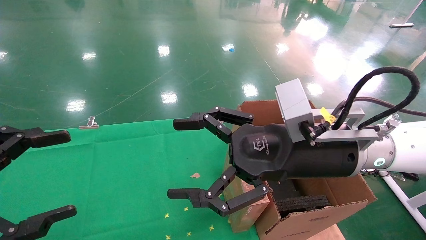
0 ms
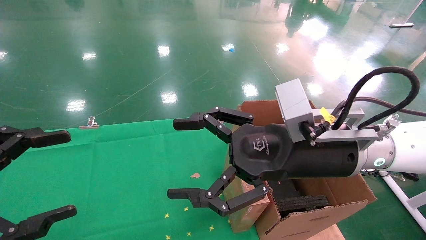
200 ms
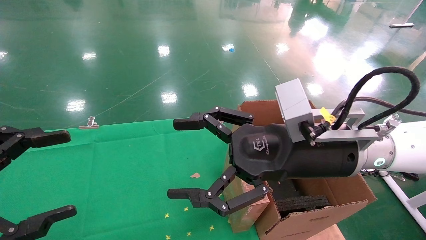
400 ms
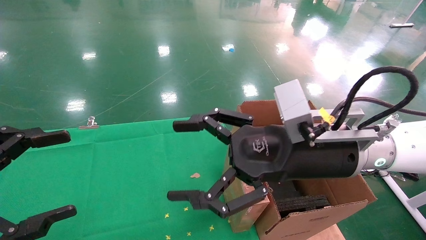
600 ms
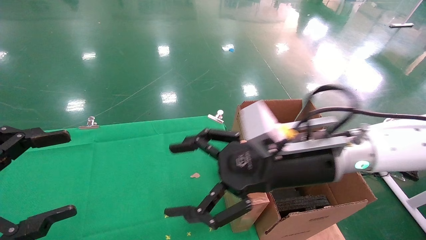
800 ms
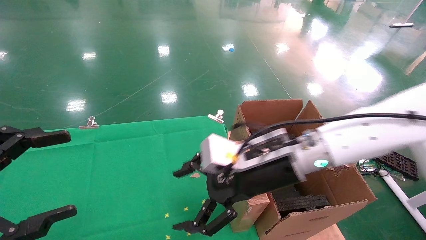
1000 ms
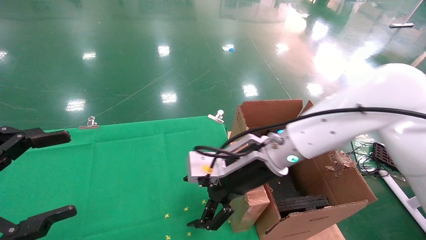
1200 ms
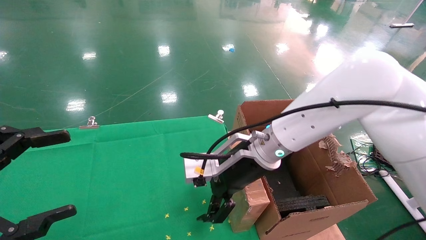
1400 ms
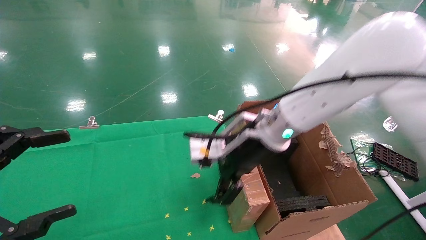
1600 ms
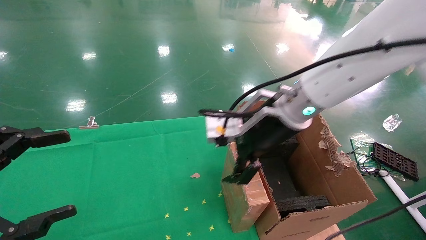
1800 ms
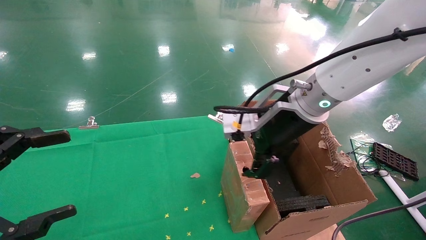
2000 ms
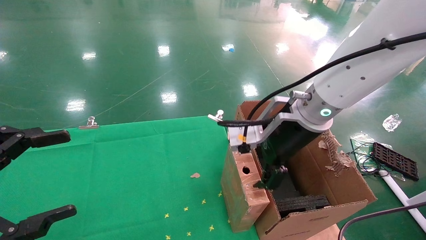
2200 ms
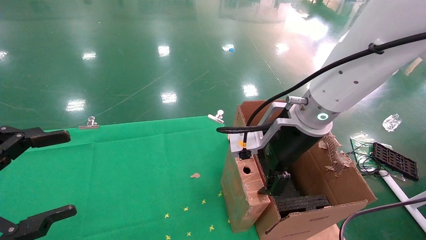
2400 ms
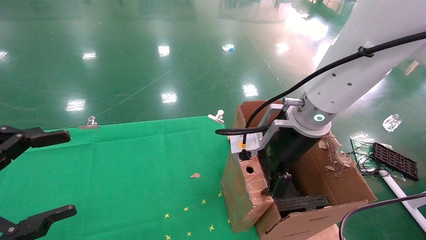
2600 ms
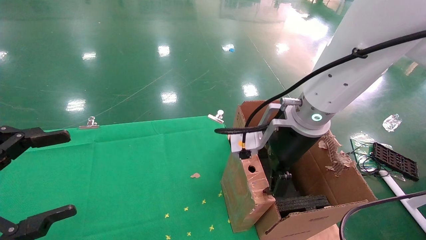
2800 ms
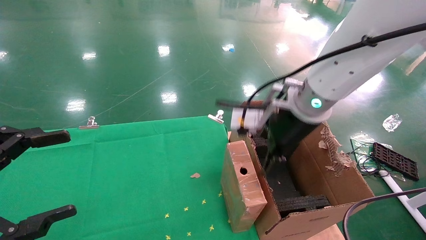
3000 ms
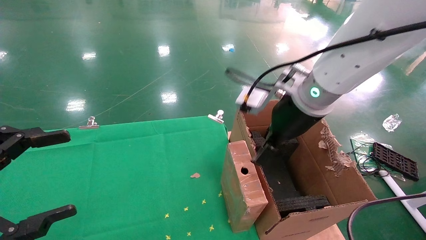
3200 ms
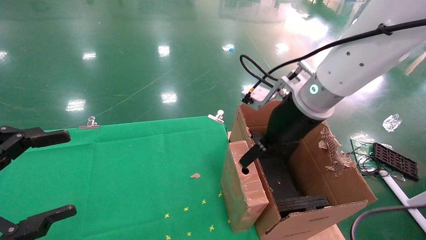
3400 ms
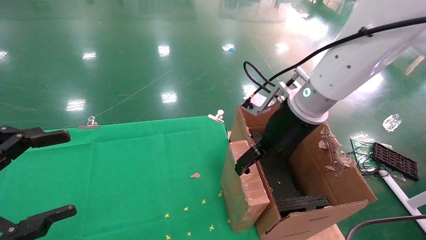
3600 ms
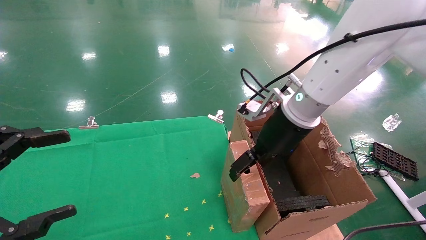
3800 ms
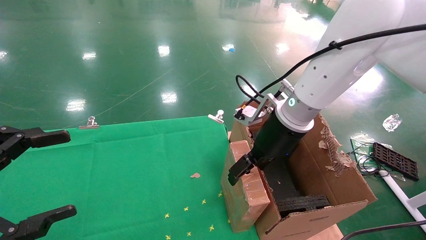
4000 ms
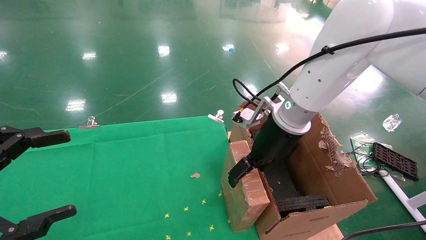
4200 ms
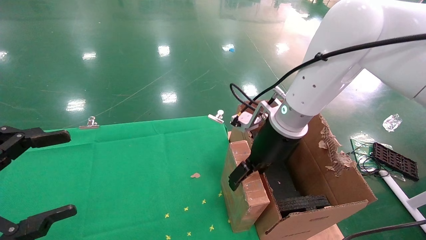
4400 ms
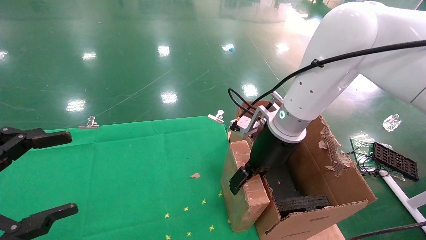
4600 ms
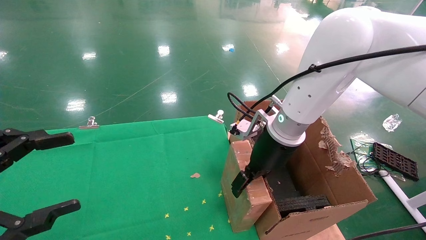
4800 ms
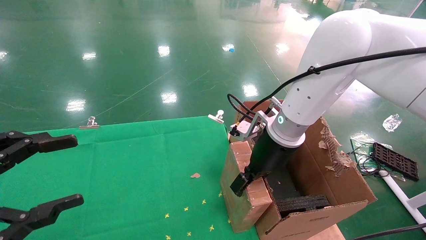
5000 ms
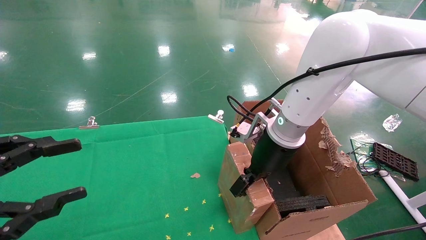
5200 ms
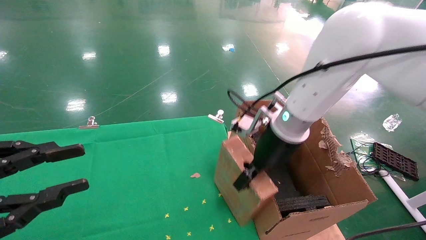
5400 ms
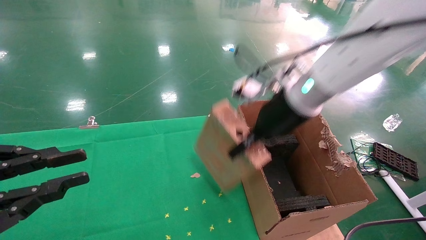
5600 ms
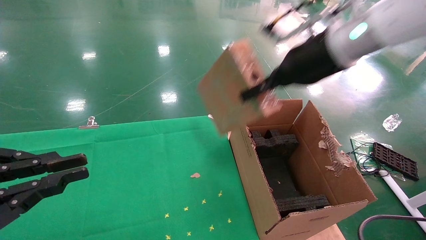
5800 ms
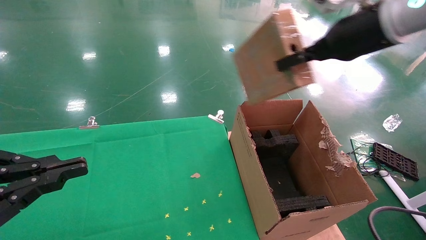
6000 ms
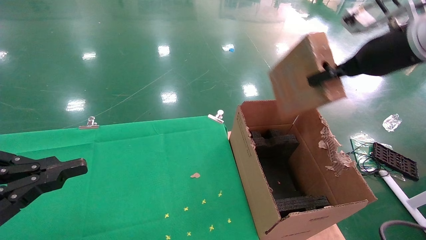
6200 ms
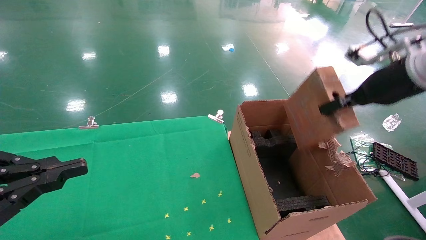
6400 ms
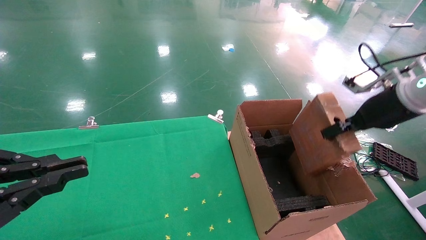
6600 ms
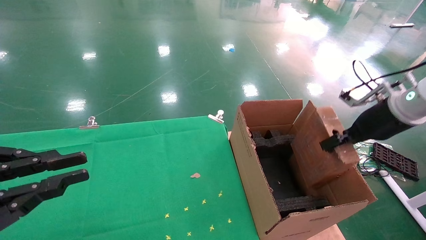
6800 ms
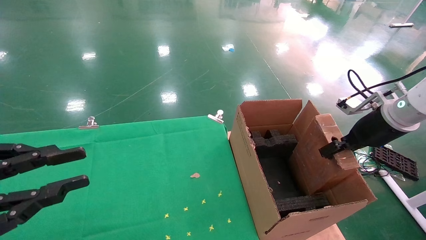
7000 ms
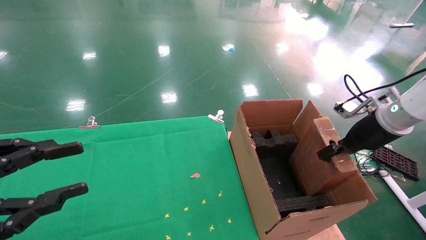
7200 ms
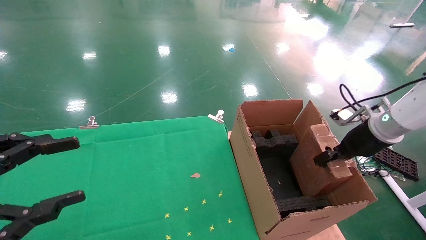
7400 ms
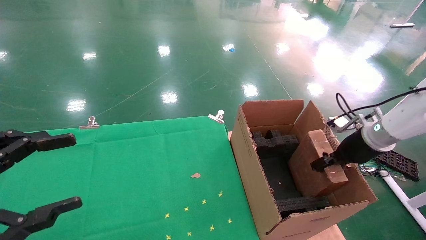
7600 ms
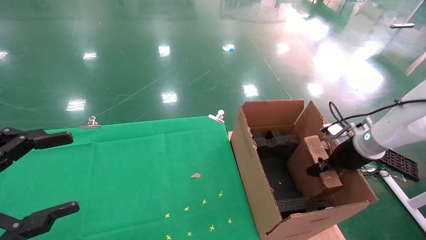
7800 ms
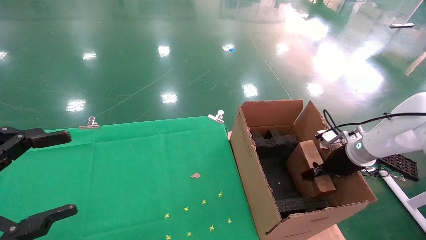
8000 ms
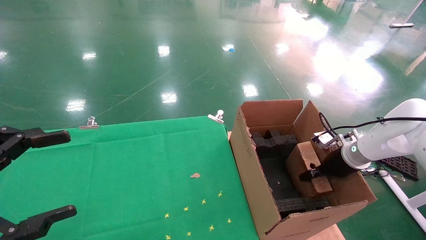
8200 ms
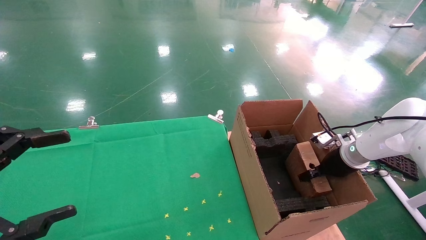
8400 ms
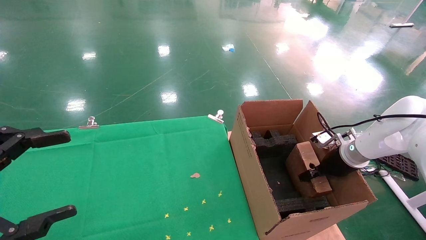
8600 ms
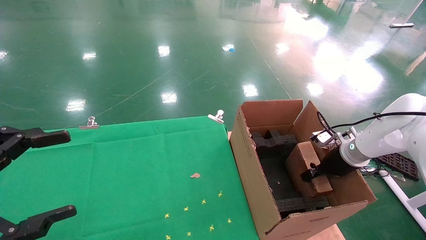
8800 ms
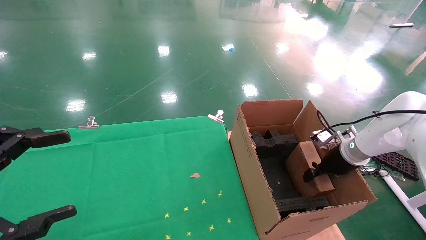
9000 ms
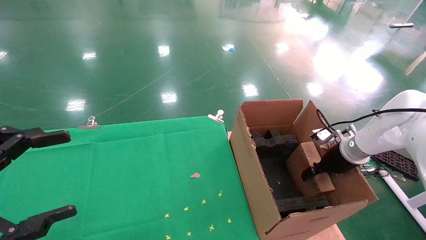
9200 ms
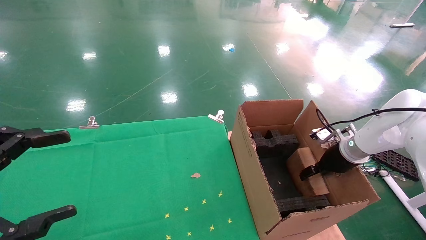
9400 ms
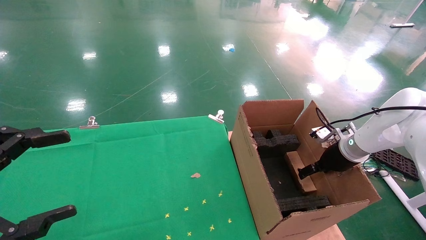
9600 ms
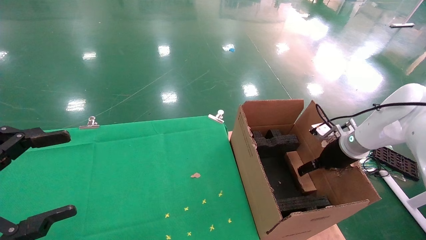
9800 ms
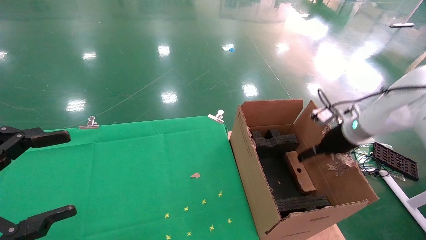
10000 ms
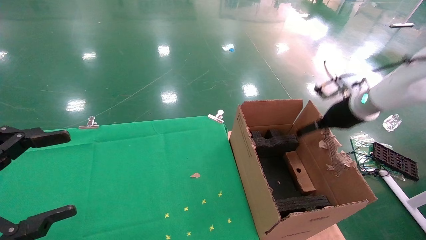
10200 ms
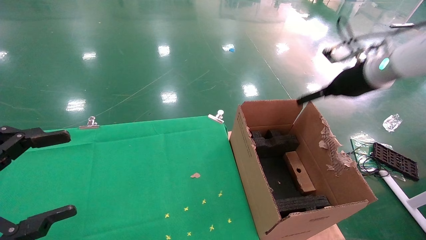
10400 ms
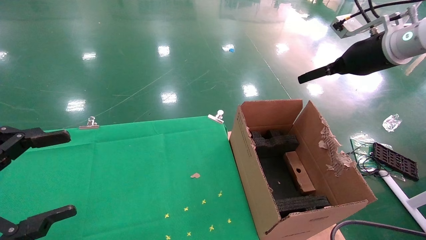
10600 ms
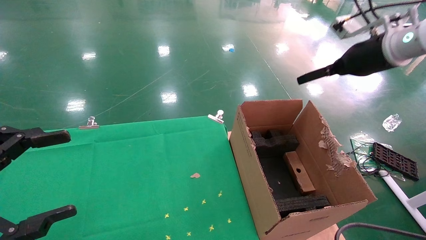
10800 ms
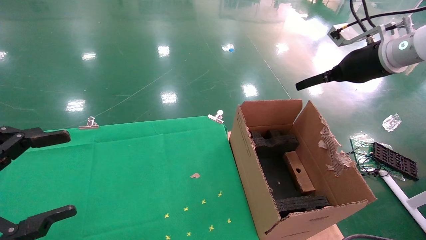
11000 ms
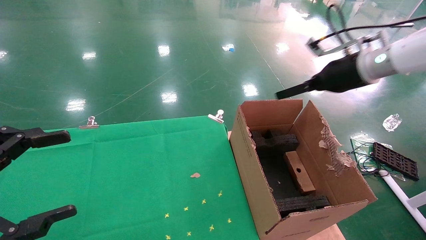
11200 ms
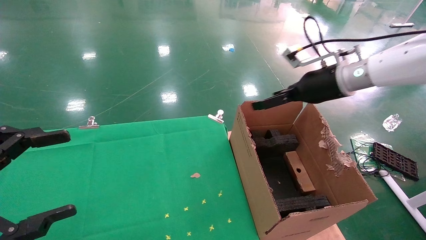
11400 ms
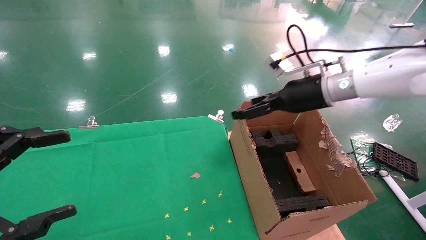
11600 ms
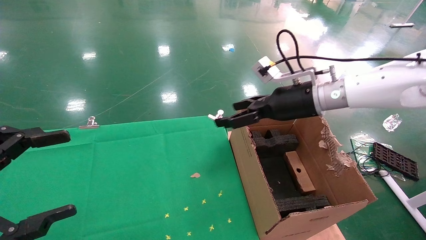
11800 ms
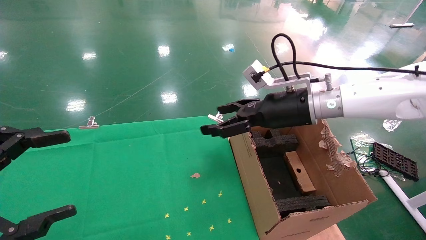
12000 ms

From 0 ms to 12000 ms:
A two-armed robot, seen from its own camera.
Task of the whole recording: using a robotic arm to pick up a cardboard box and palace it the carton.
Step, from 1000 ms to 5200 ms: Pick up the mouse and the power cord paper box.
Step, from 5400 ms to 9800 ms: Place the mouse and the power cord paper box into the container.
From 0 ms to 1600 ms: The right gripper heads forward and to the left, covering roughly 10 cm.
From 1600 ms to 3000 ms: The right gripper moves some 5 cm.
From 3000 ms to 4400 ms: The right gripper ends up roughly 5 cm from where it was.
From 4400 ms to 6000 ms: The left gripper closes its fingers. The right gripper travels upward and to the right by some 20 cm, and closes.
From 6000 ms to 7600 ms: The right gripper shifts some 25 cm downward and to the right. The left gripper opens up.
From 7600 ms to 9000 ms: The right gripper shifts about 5 cm downward.
From 9000 ms to 10400 ms: The right gripper heads upward, covering about 20 cm, and opens its fingers.
From 10400 ms to 12000 ms: The right gripper goes roughly 15 cm to the left.

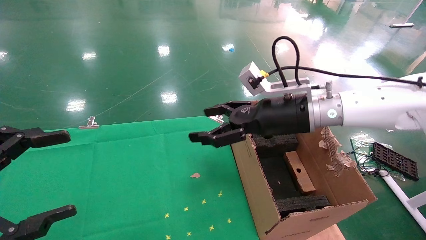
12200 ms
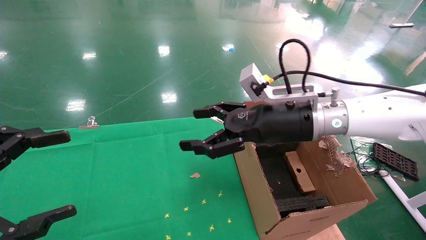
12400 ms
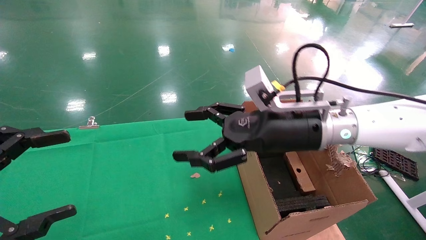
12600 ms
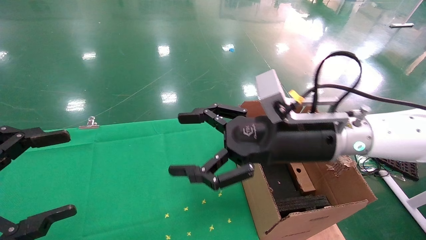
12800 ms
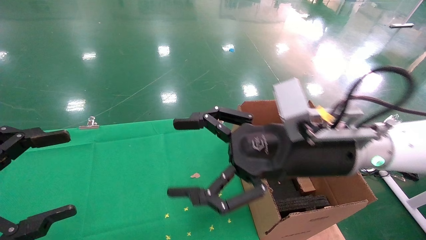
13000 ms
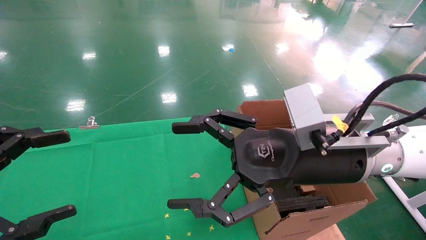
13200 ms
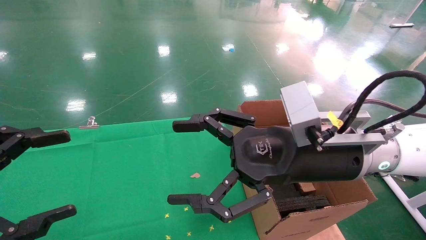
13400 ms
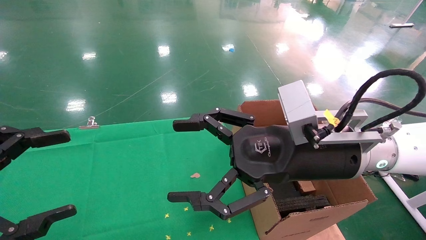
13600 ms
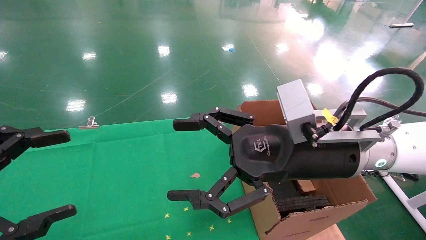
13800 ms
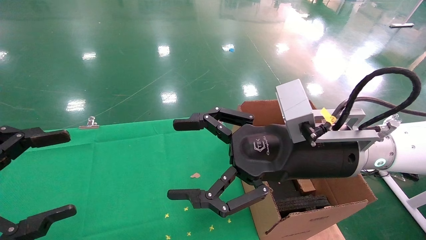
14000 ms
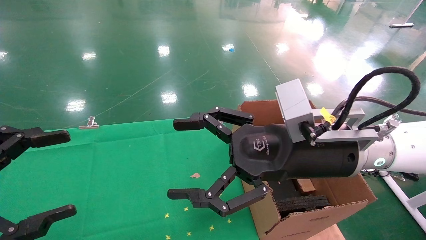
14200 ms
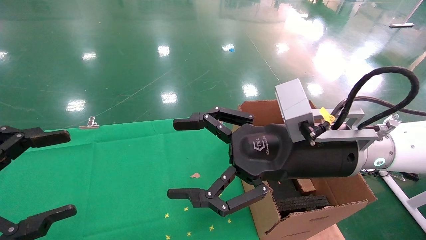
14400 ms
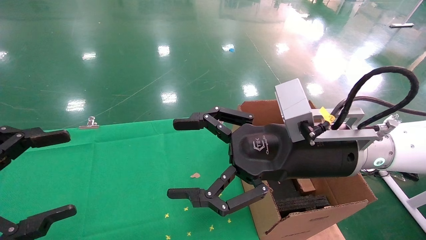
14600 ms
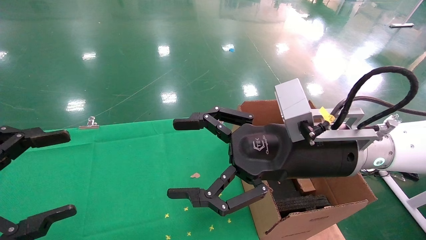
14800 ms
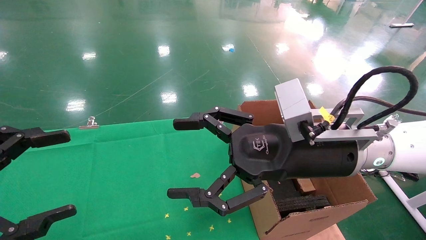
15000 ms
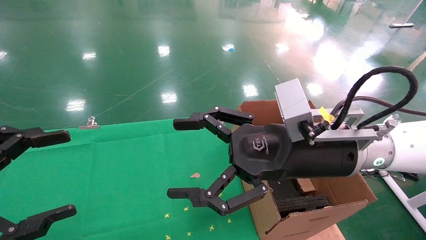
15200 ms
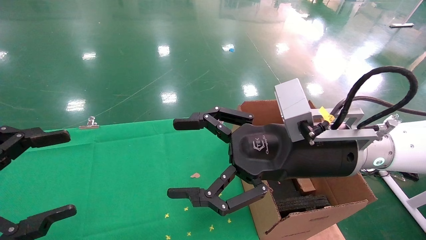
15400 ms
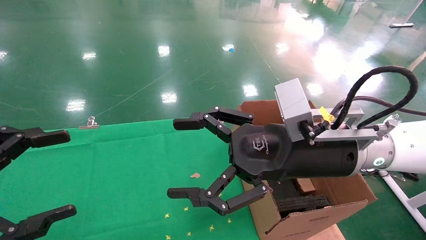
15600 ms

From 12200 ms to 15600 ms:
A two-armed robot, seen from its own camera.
Task of the whole recording: using a robotic arm to pick up a cardboard box and palace it the carton.
From 12200 ms to 13800 ms: The right gripper shifts some 10 cm backward.
From 13800 ms to 15600 ms: The two grippers keep their place.

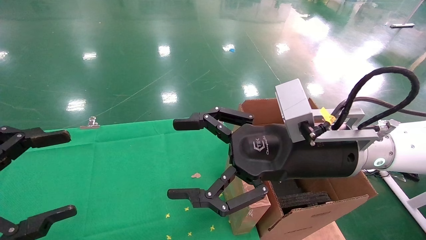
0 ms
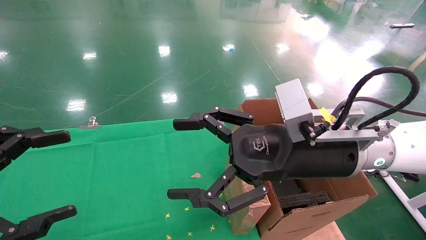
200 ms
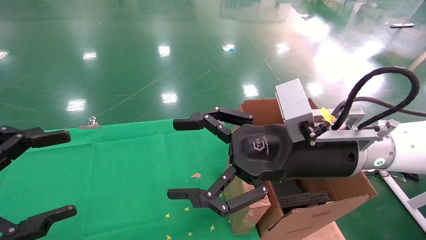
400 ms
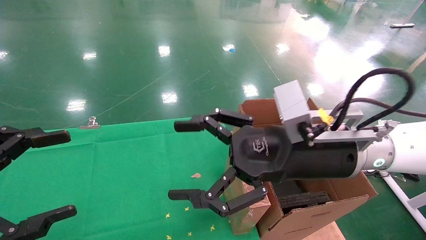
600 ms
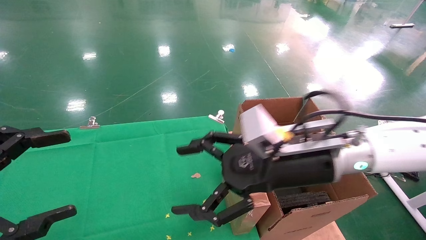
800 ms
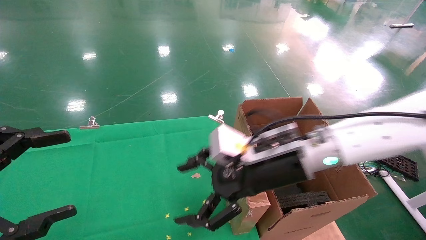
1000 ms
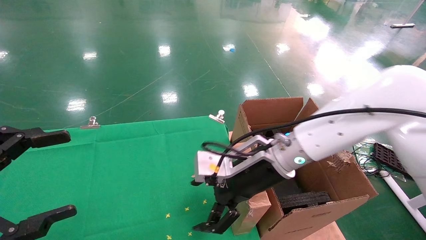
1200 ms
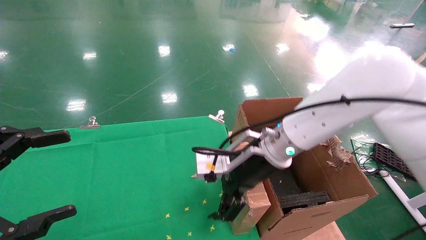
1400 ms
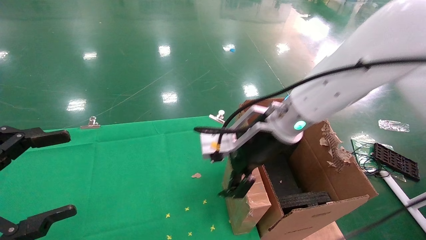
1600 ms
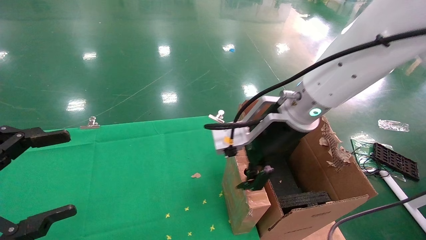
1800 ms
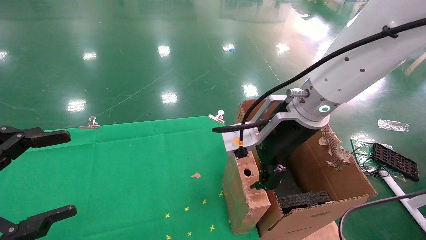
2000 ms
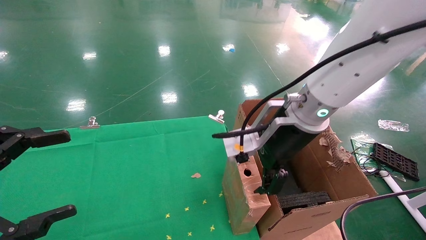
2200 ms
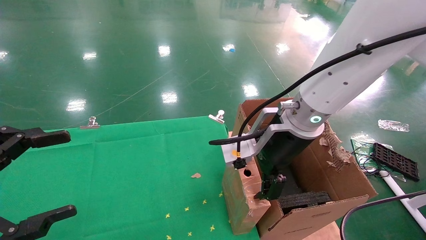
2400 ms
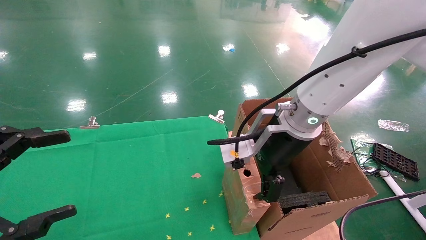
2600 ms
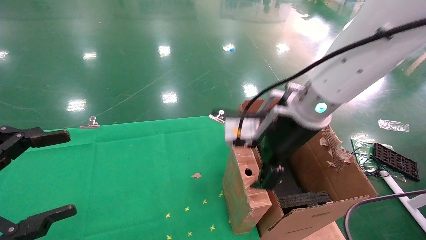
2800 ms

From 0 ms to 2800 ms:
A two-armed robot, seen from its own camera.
Task of the whole recording: using a robotic arm to pick up a cardboard box and palace it the carton.
From 0 ms to 1400 ms: The right gripper moves forward, about 10 cm.
From 1400 ms to 2800 ms: The right gripper is displaced upward by roughly 5 cm.
